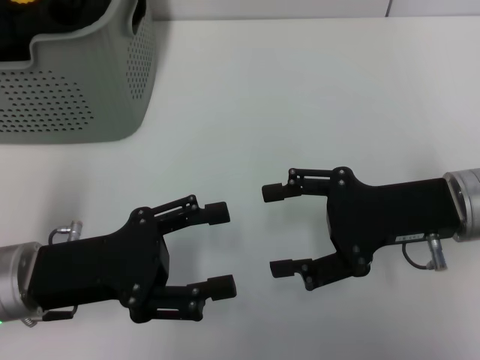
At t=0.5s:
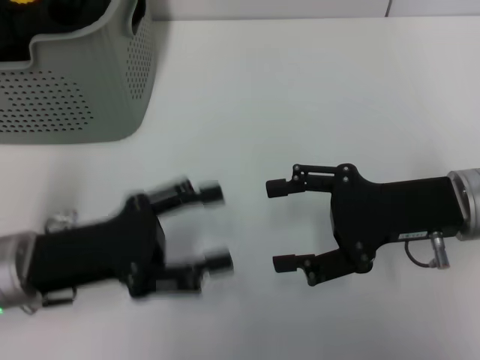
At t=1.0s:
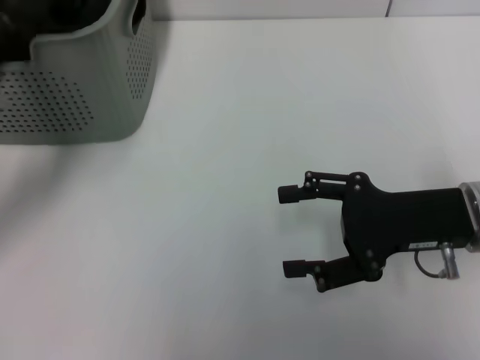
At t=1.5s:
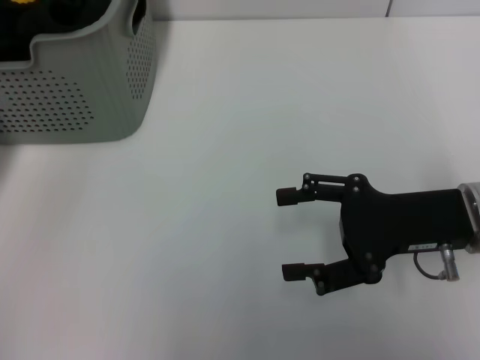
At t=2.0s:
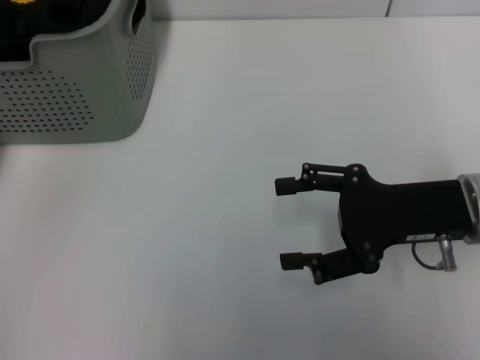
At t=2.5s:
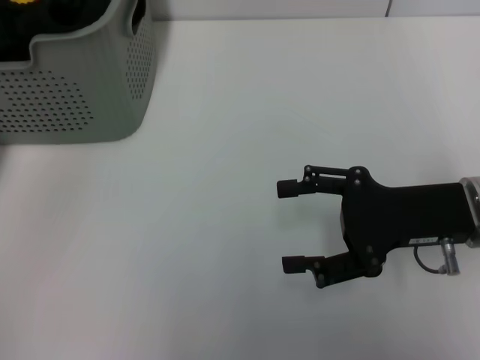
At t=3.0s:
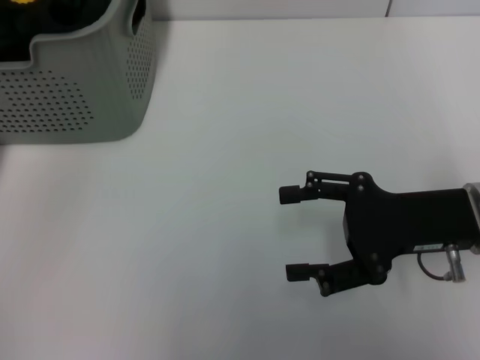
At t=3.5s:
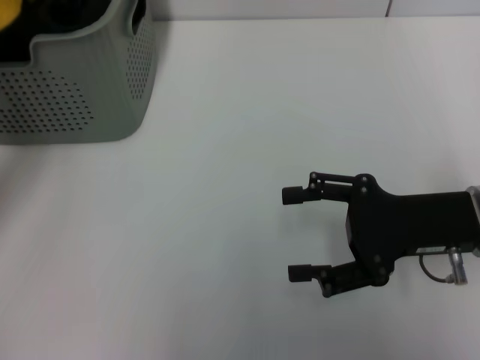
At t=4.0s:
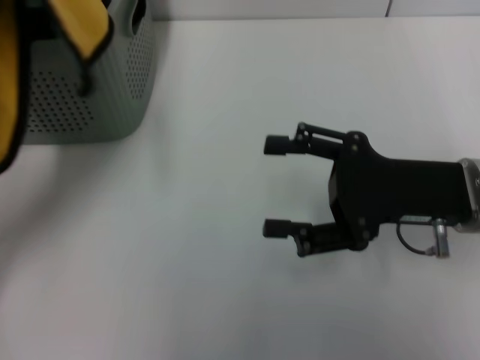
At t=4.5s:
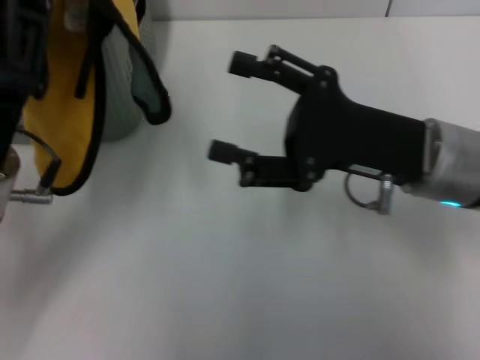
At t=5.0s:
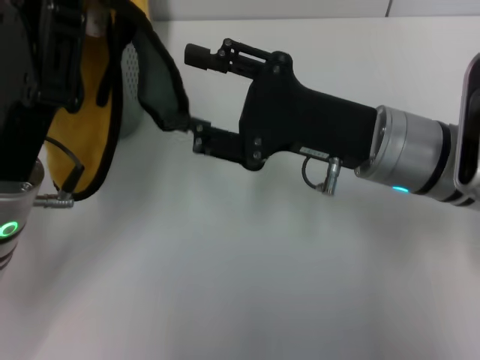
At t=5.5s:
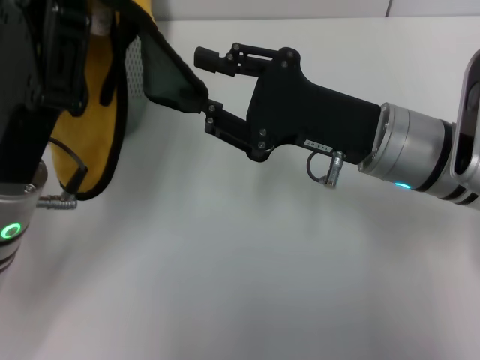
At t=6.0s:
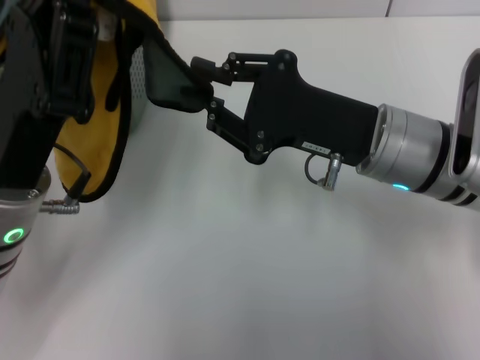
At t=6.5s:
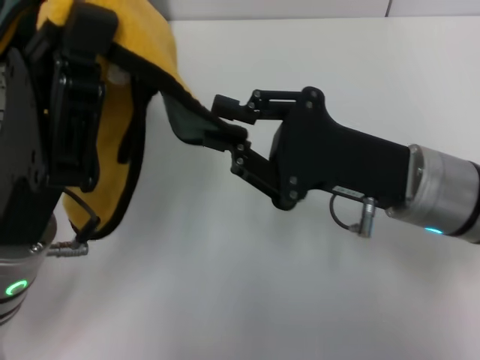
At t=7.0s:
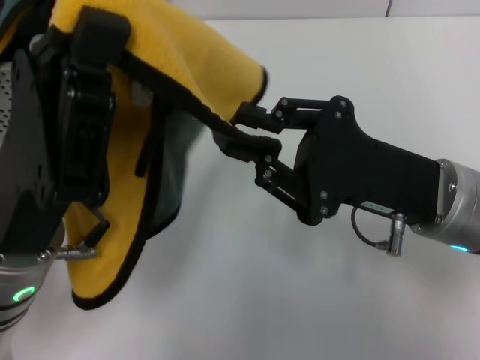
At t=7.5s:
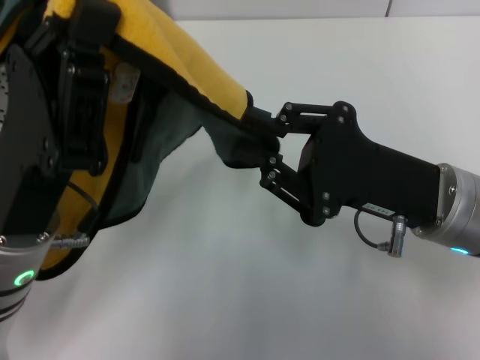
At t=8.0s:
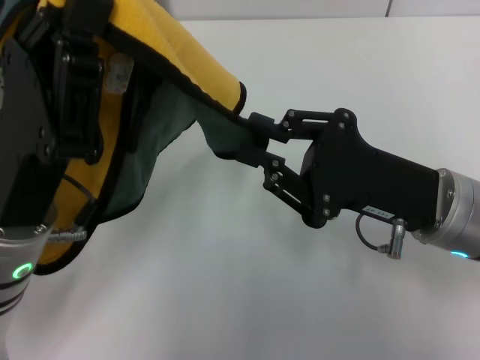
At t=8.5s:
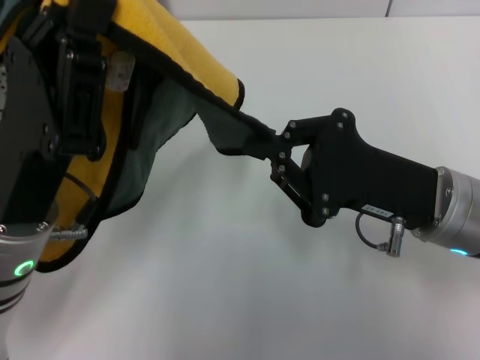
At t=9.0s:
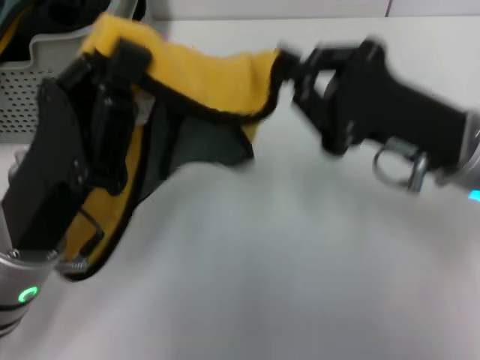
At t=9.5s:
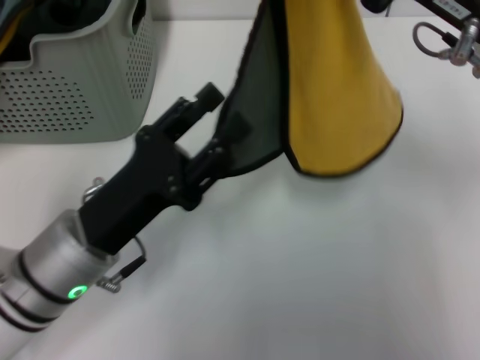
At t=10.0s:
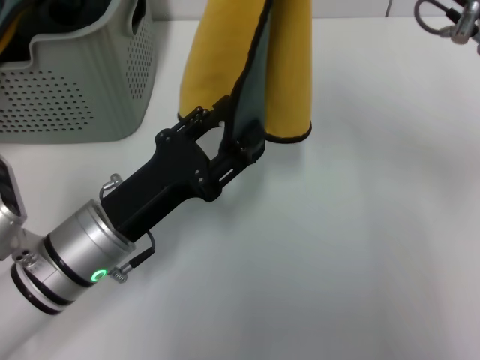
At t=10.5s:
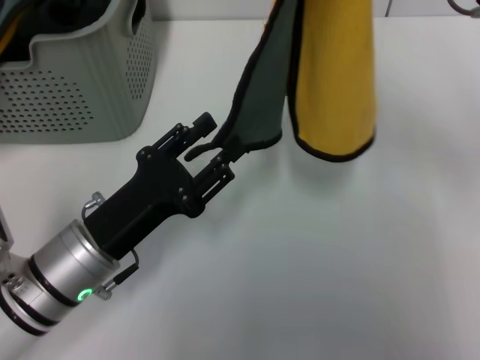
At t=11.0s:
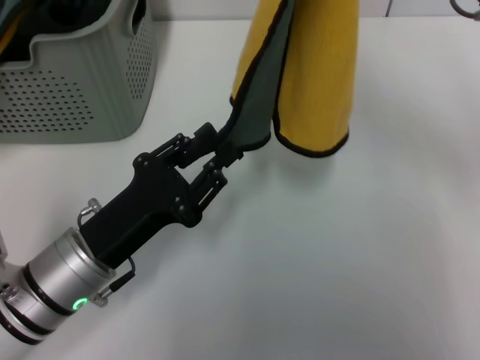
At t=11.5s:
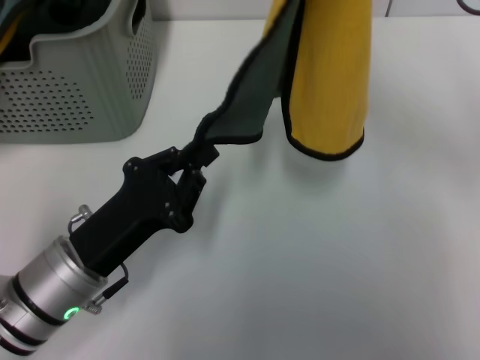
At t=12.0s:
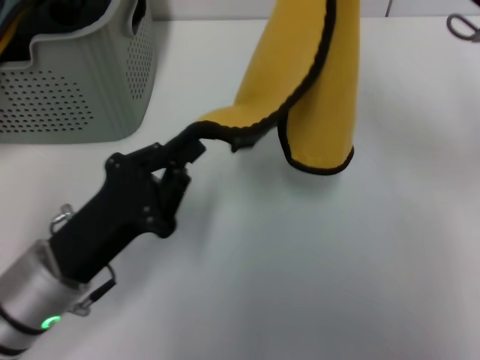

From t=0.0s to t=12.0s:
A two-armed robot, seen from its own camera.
Task of the whole recording: pick up the towel from the storage box and lay it flat on the table.
Step, from t=0.0s to t=3.0s: Pick up a towel with the left gripper.
Step, from t=3.5s to t=8.5s: Spread the towel flat with the left gripper.
From t=0.0s to t=2.0s: The left gripper heads forward and to the left, covering some 15 cm.
From t=2.0s to t=4.0s: The left gripper travels to the right, backward and upward by roughly 10 cm, and closes.
From t=4.0s to t=6.0s: The left gripper goes about 5 cm to the right. The right gripper goes approximately 5 cm to the left, and closes.
From t=6.0s to t=8.0s: The right gripper changes place by some 5 cm.
From t=8.0s to t=10.0s: The left gripper moves downward, approximately 5 cm, and opens up. The right gripper is displaced upward and forward by about 15 cm.
From t=10.0s to t=12.0s: The left gripper closes.

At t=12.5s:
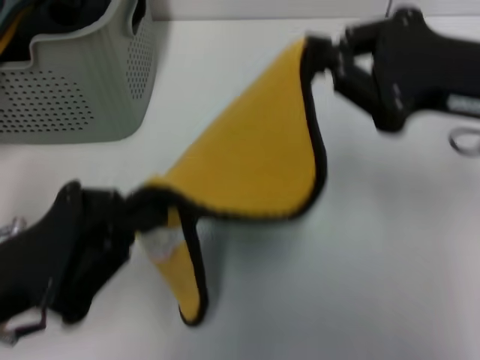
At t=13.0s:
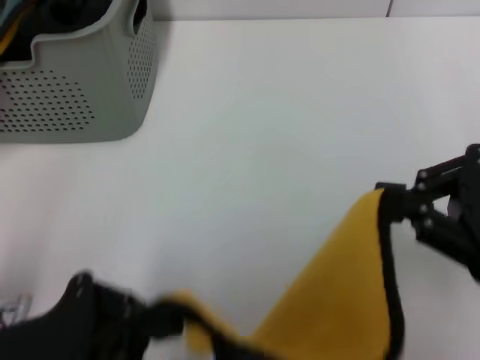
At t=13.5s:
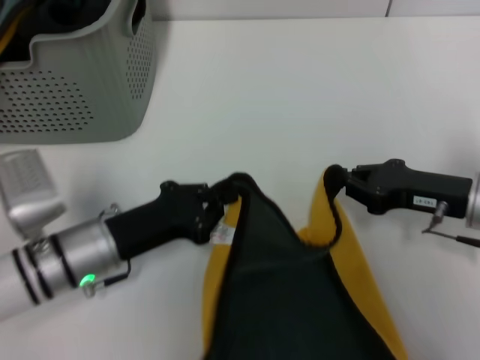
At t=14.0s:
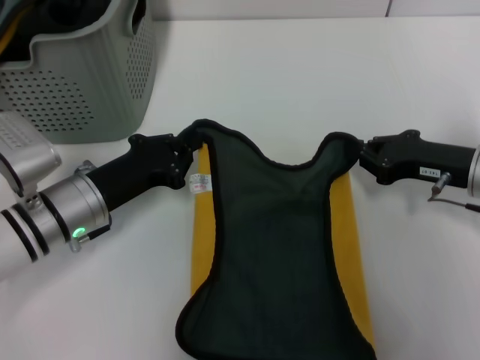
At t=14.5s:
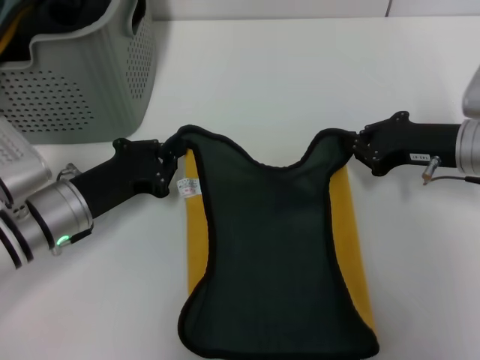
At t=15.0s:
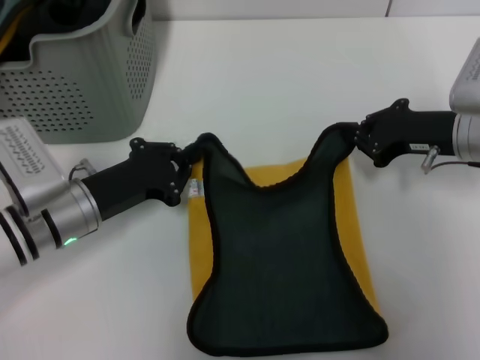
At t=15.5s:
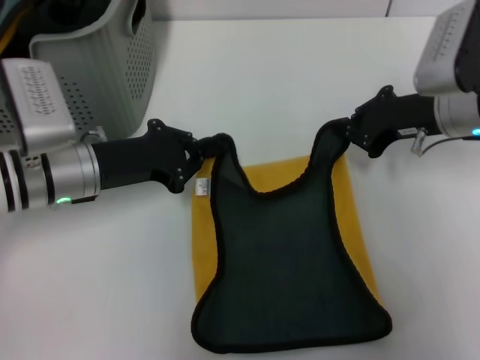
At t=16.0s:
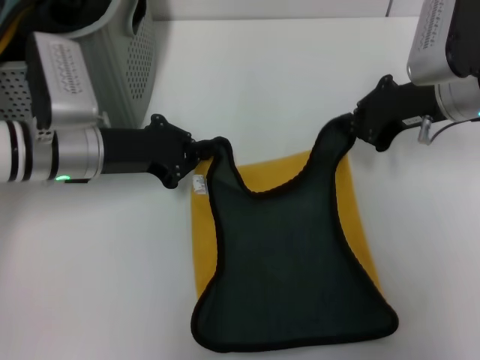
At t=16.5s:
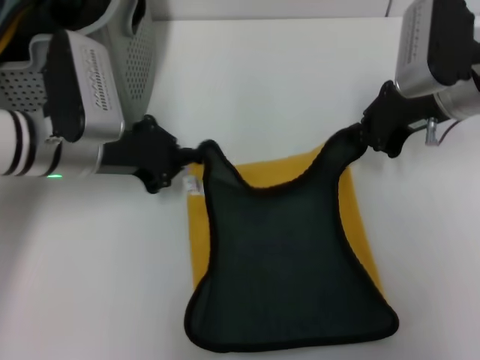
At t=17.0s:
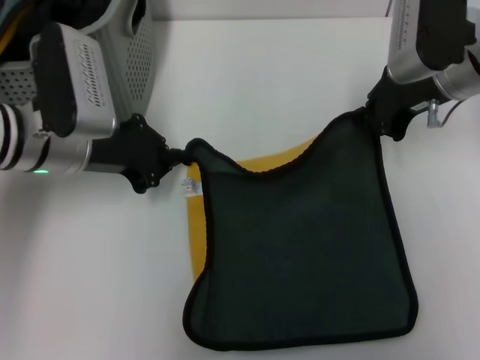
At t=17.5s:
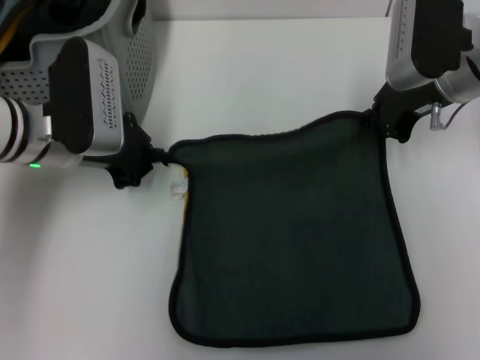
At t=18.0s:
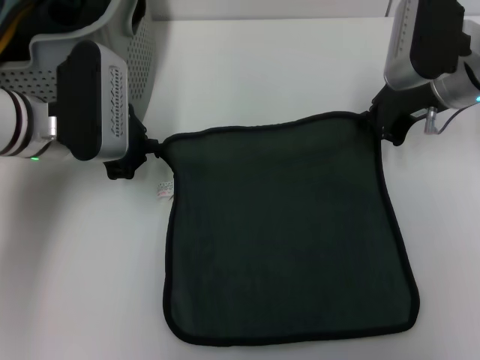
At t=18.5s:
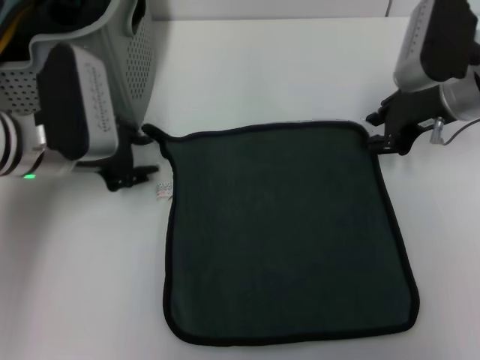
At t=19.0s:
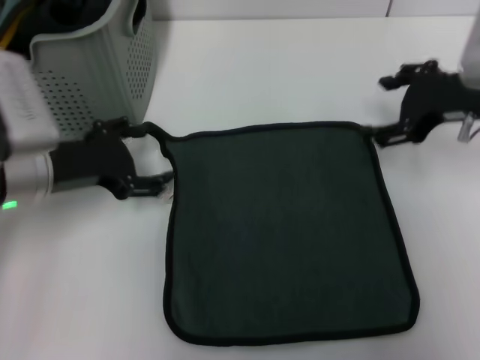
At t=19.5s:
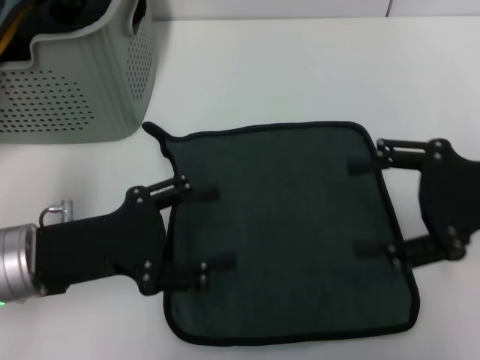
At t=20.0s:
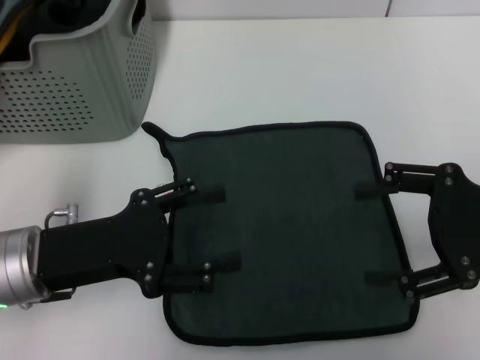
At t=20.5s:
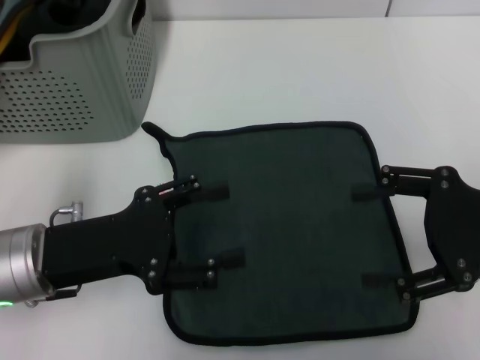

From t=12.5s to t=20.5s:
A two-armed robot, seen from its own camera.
Task of the whole recording: pick up the towel from the storage box and lay it flat on the table.
Step, from t=12.5s to t=18.5s: Spread the towel flat with the right gripper.
From t=12.5s to t=14.5s: The right gripper is displaced downward and forward by some 15 cm, while the left gripper heads forward and downward, covering about 15 cm.
From t=14.5s to t=16.5s: The right gripper travels upward by some 5 cm, while the left gripper is displaced upward and forward by roughly 10 cm.
From t=18.5s to t=20.5s: The left gripper goes approximately 10 cm backward, and opens. Meanwhile the right gripper heads backward and to the right, covering some 15 cm, and opens up.
